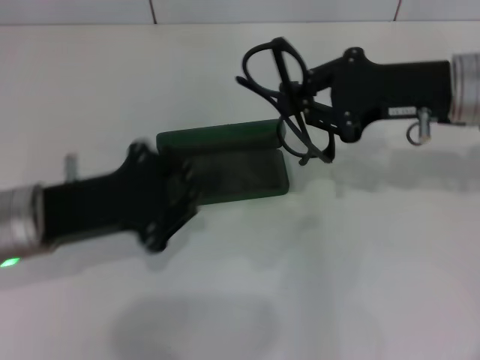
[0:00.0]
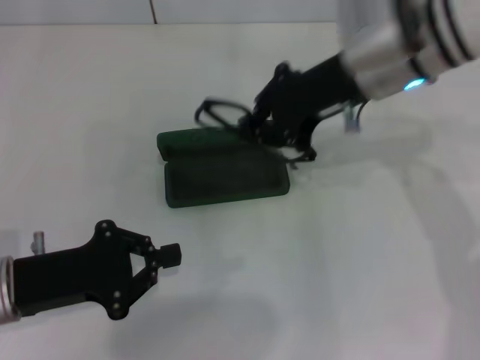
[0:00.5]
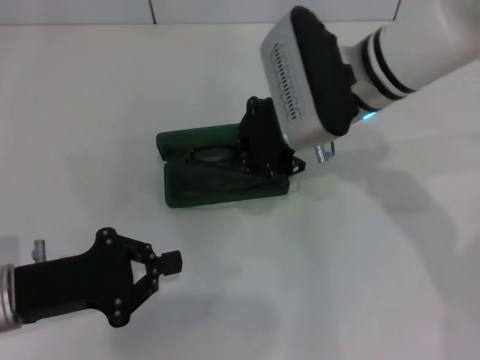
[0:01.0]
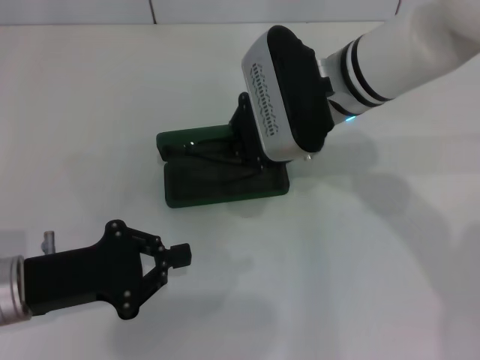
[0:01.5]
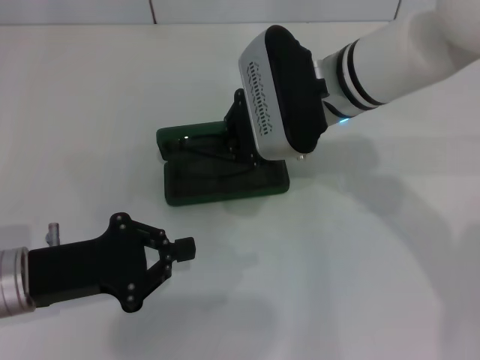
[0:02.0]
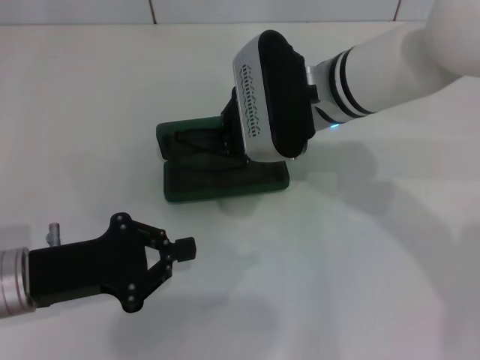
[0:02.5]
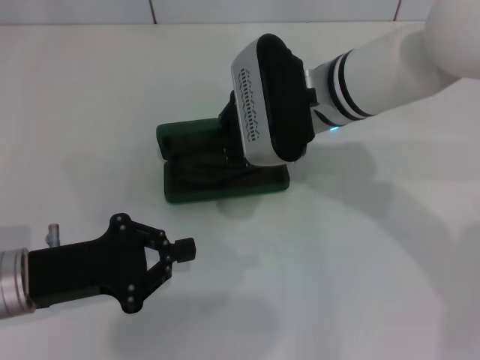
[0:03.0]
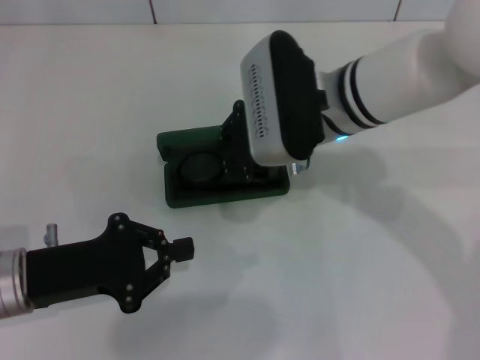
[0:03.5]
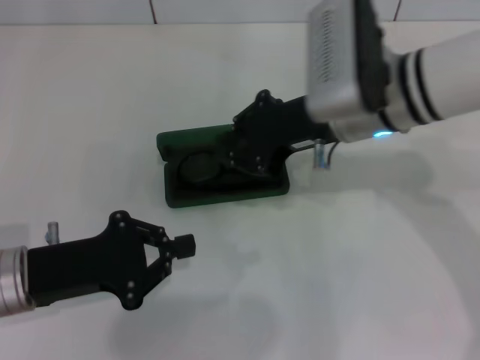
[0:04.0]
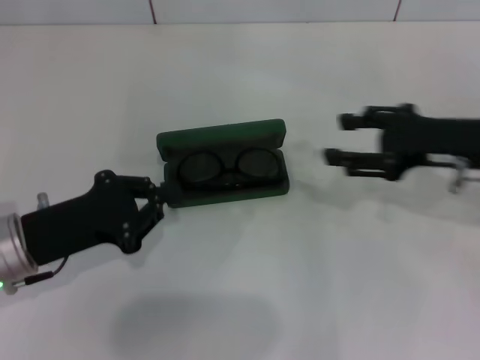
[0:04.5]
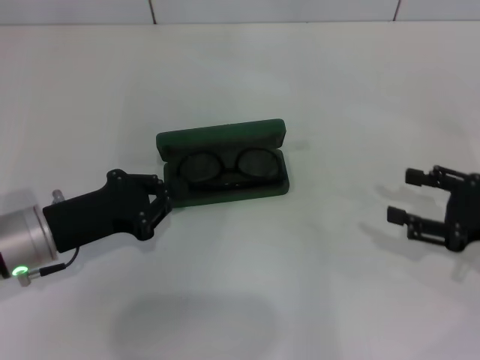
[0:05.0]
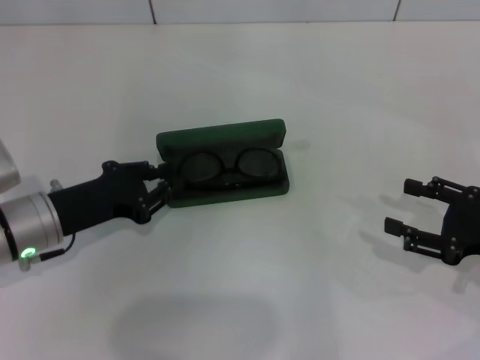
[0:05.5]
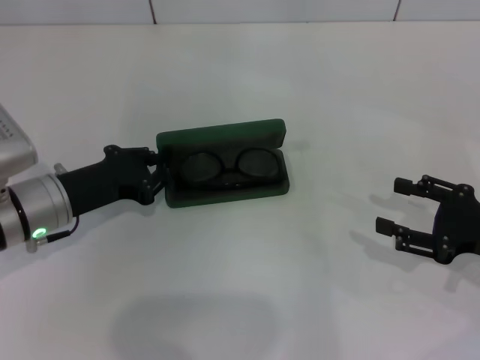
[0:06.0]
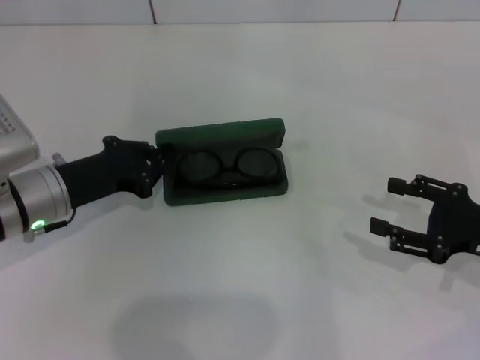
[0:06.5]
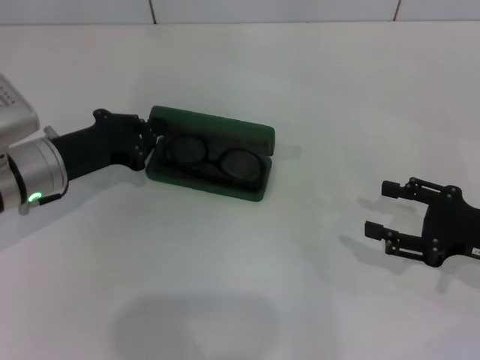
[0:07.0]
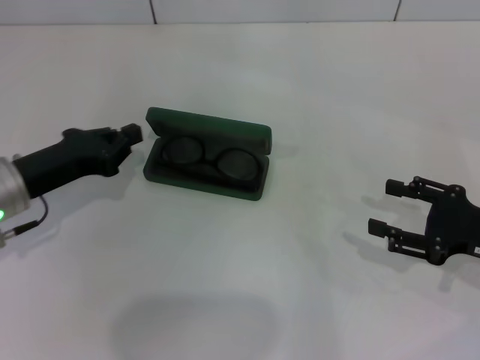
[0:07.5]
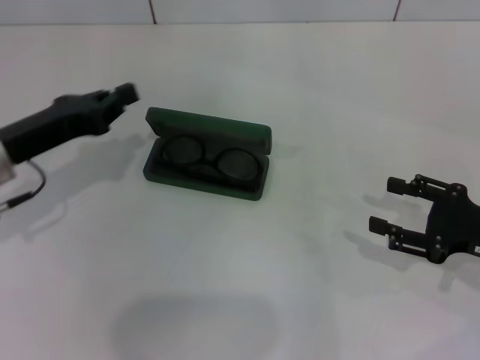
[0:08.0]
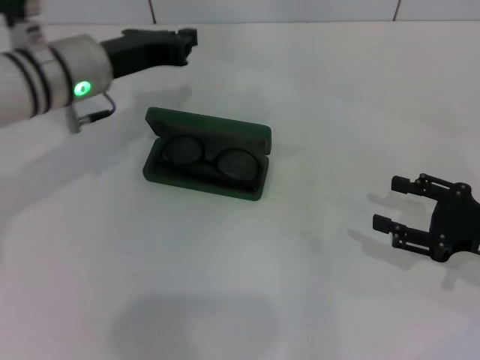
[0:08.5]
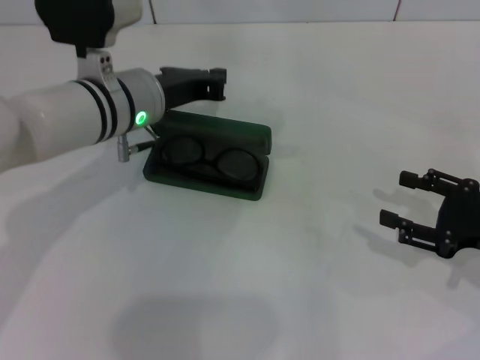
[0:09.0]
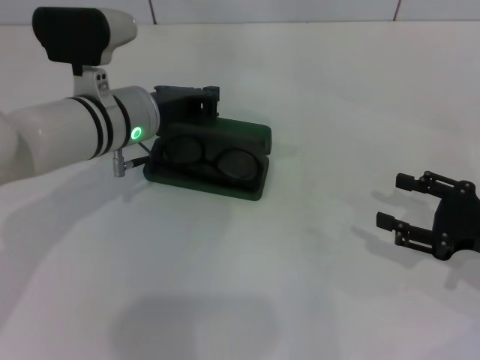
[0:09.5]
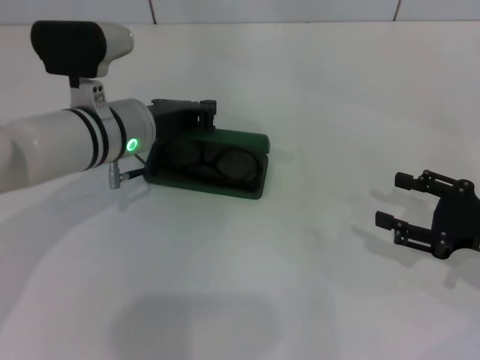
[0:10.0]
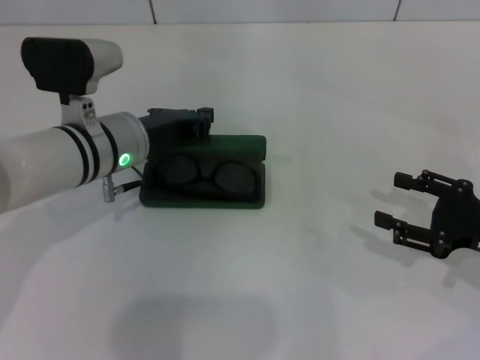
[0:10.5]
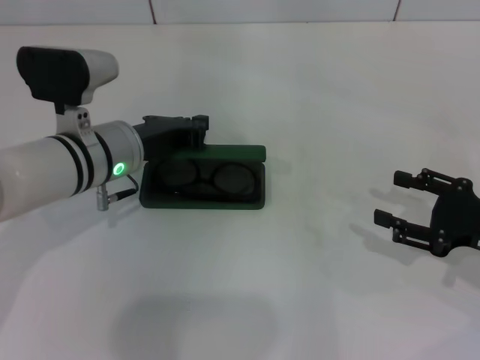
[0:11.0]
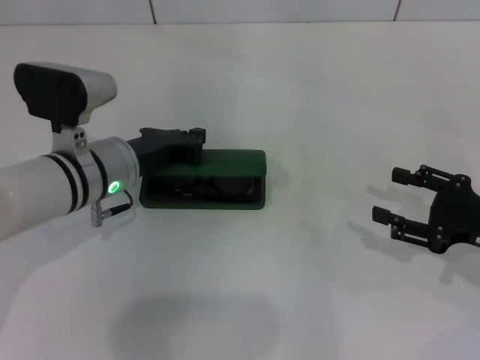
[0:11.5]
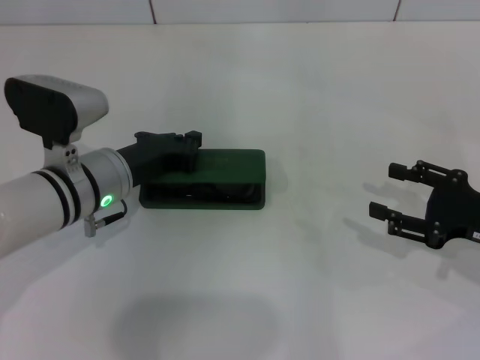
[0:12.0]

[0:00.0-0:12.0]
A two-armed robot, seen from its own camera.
Step, 0:00.0 to 0:03.5: Put the glasses into the case with your right hand.
0:00.0 to 0:02.0: The right gripper goes some 15 cm to the left. Meanwhile the left gripper moves approximately 5 cm.
0:04.0 to 0:06.0: The right gripper shifts roughly 25 cm to the right, downward and backward, and opens its fingers. Meanwhile the left gripper travels forward by roughly 10 cm.
0:06.0 to 0:08.0: The left gripper is displaced upward by some 5 cm.
0:08.0 to 0:10.0: The left gripper shifts about 15 cm to the right and forward.
0:10.0 to 0:12.0: The left gripper ends up approximately 5 cm from where it was.

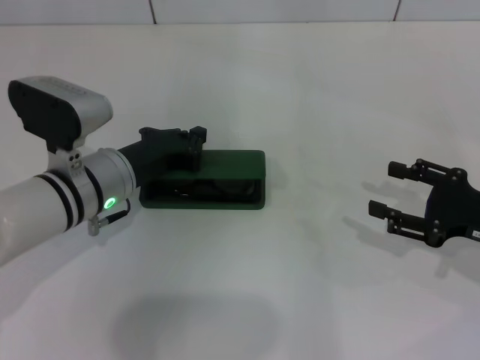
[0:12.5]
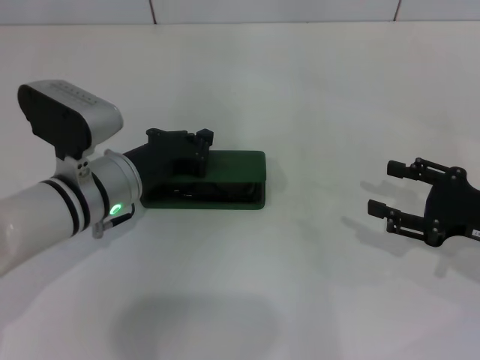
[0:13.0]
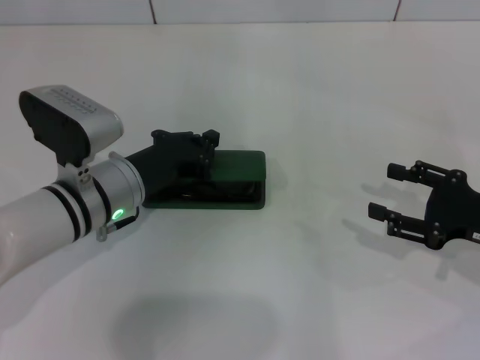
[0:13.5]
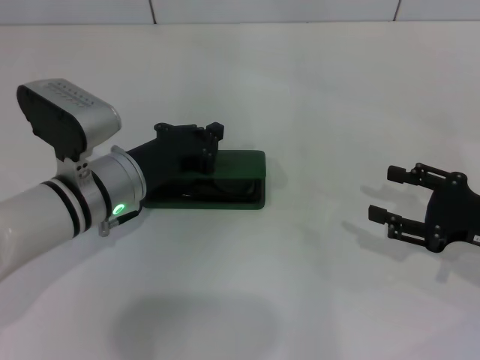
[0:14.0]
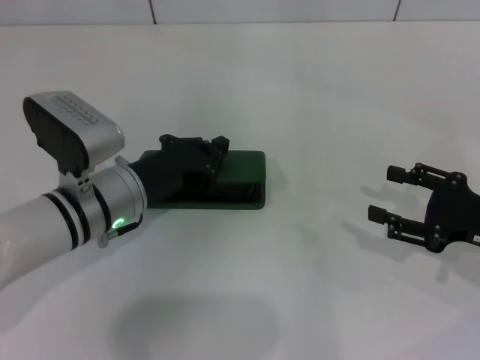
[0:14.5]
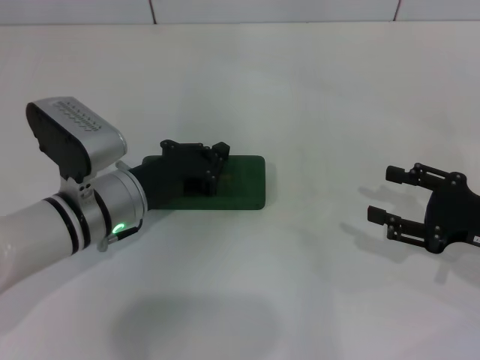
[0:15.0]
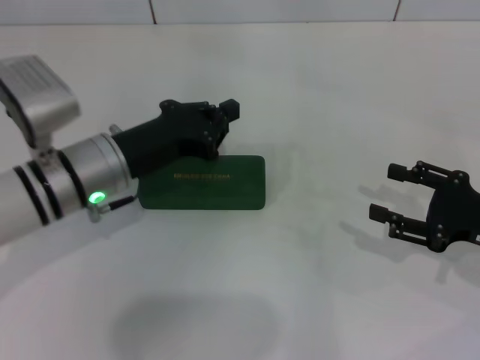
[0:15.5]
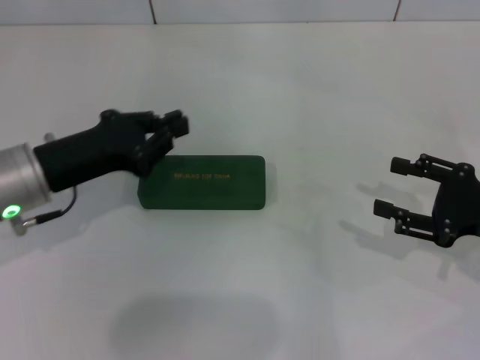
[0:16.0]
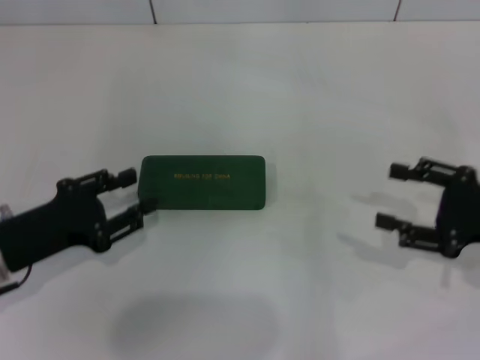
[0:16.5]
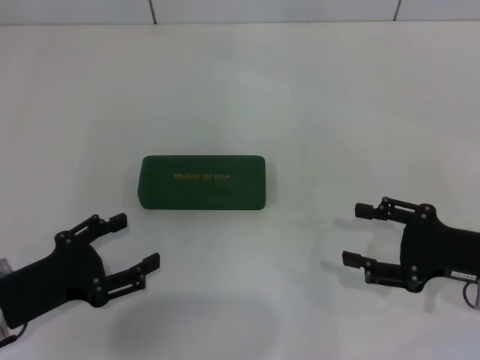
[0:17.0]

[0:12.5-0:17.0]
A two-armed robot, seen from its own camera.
Step, 0:12.5 to 0:15.0: Close the glasses case with your left hand.
0:12.5 to 0:14.5: The grippers stay close to where they were, moving slightly.
0:14.5 to 0:17.0: The left gripper heads to the left and backward, covering some 15 cm, and opens up.
